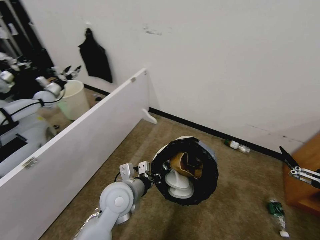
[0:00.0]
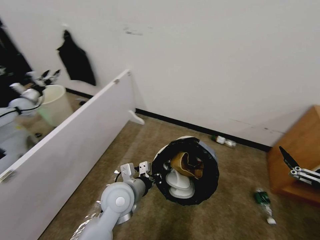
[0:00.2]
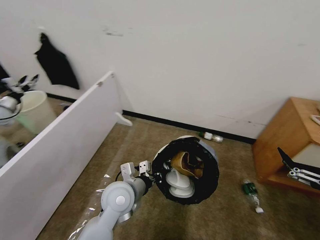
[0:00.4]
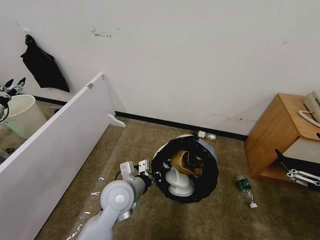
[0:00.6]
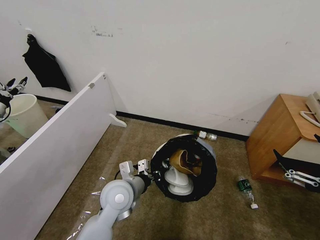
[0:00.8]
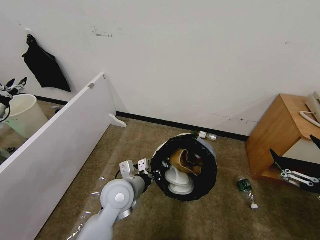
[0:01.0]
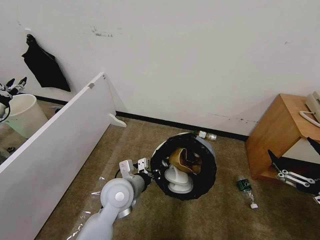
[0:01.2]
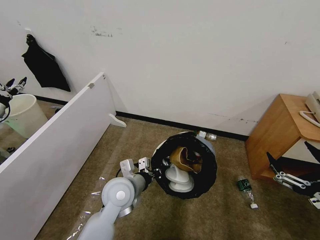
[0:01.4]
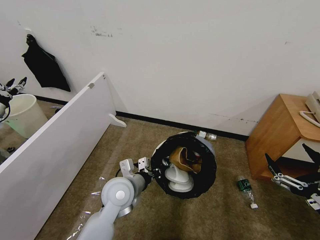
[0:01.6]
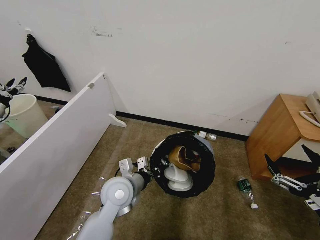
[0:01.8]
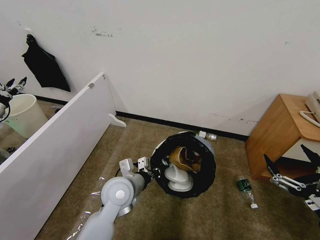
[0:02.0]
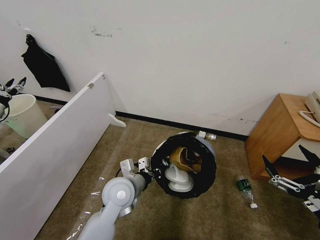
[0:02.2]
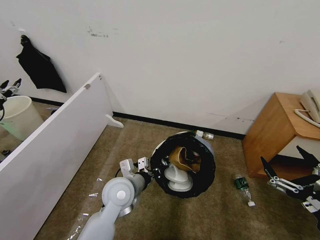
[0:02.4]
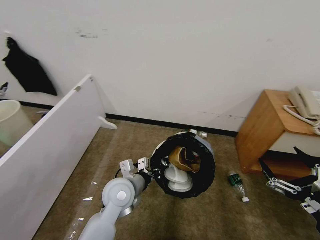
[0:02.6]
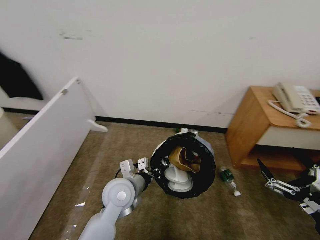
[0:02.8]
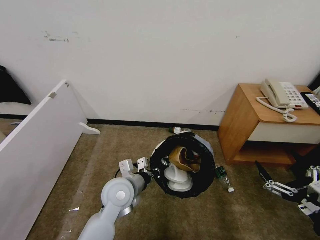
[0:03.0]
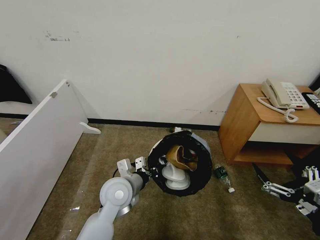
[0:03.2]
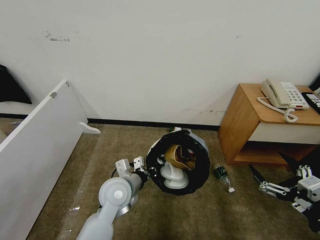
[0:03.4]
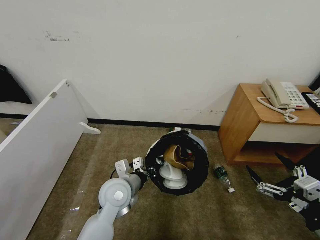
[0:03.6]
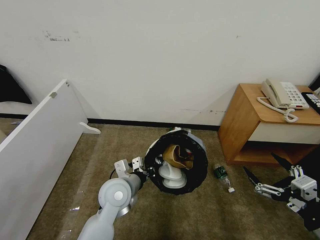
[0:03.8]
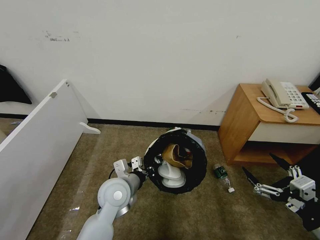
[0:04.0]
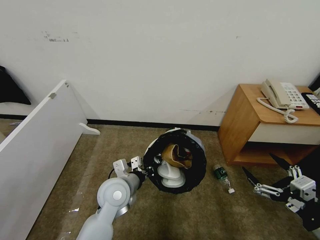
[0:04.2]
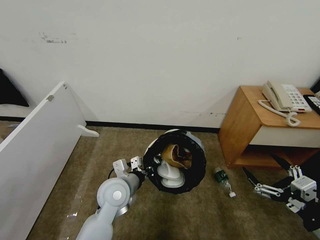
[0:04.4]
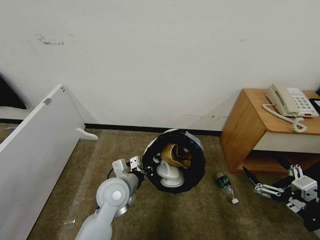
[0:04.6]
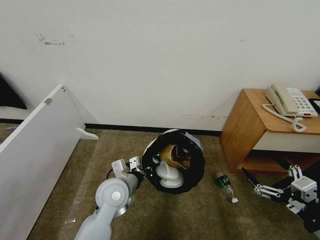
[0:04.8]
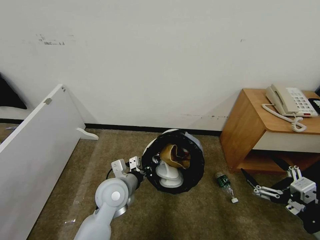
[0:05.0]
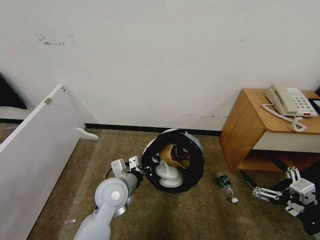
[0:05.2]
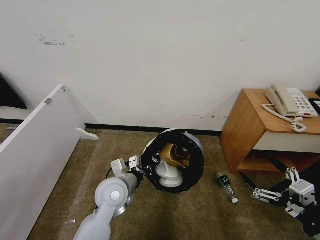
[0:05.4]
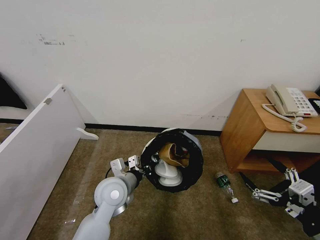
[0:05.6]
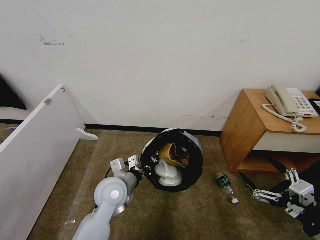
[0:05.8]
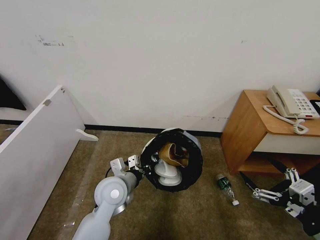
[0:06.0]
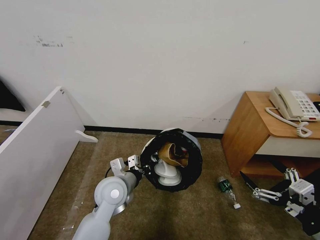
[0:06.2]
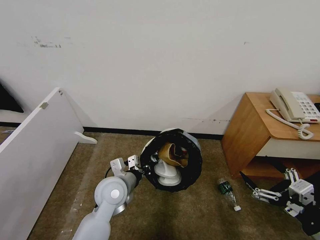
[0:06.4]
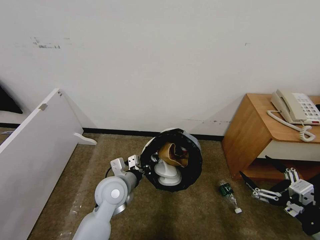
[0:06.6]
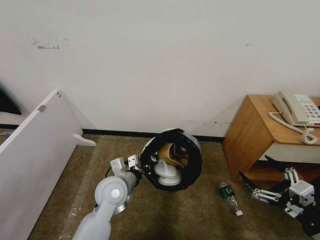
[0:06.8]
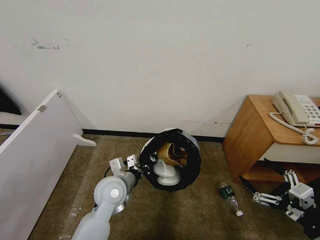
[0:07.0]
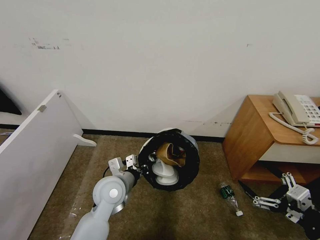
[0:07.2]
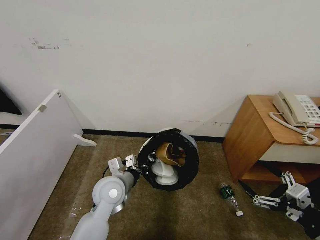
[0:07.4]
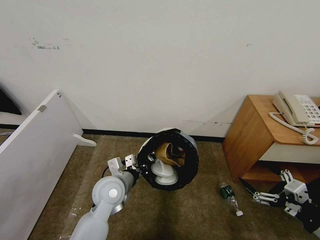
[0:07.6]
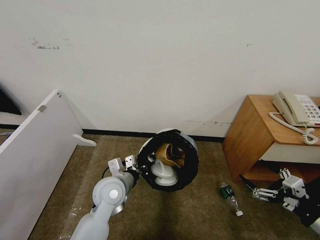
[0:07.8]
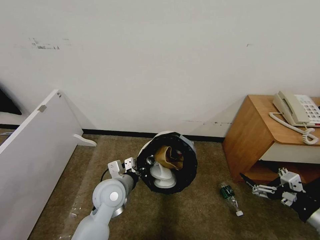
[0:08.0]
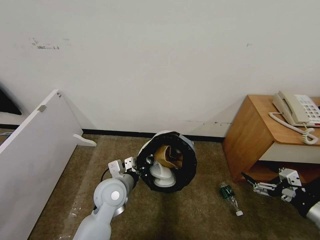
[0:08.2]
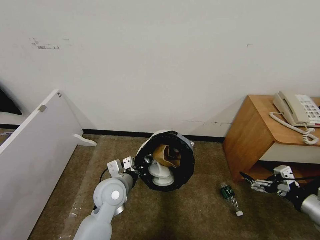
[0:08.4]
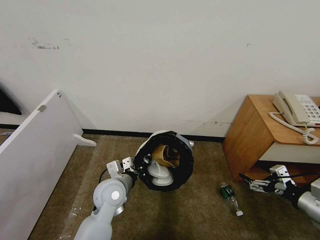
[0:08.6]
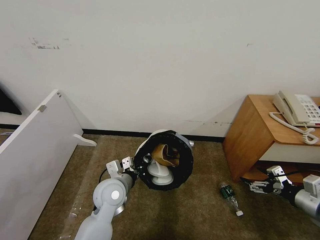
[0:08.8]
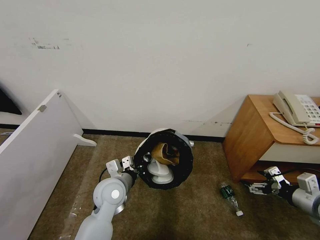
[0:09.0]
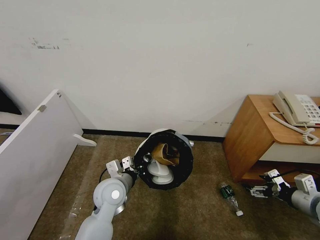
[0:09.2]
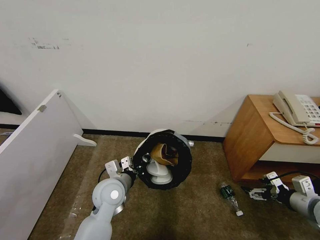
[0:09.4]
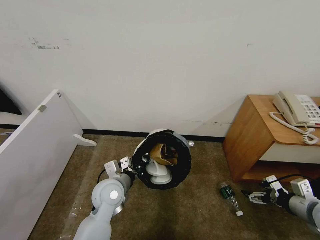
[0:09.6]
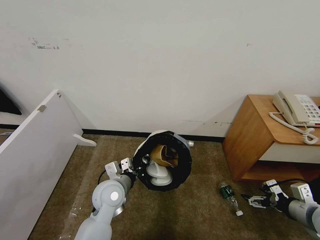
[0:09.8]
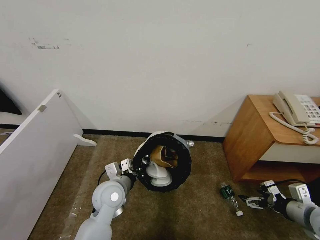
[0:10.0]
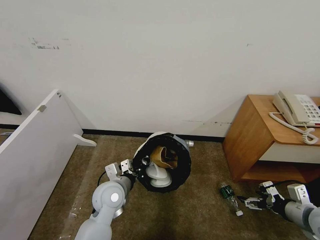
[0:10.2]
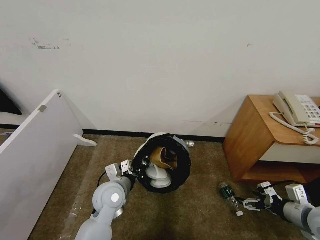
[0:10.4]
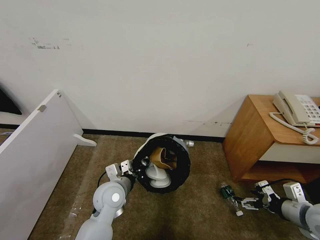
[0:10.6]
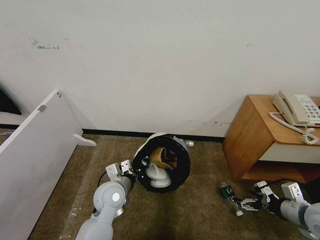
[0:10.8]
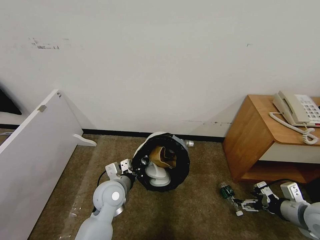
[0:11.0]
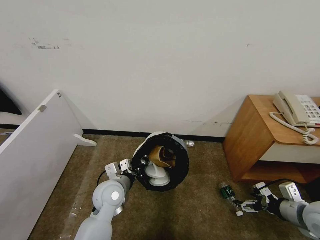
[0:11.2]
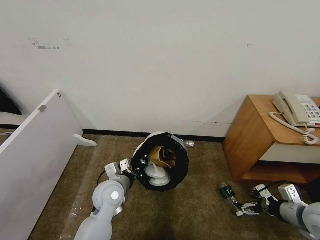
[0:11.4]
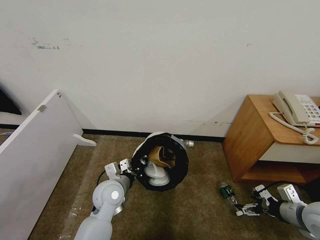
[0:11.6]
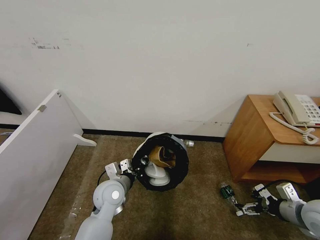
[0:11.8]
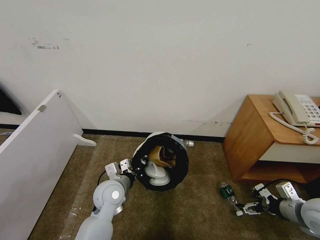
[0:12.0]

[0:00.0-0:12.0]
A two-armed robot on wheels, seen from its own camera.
Task of the whole recording: Pick up the trash bin and place the garbage on the floor into it.
0:00.0 to 0:01.6: The right gripper is displaced downward by some 5 cm.
0:03.0 to 0:04.4: The grippers move only a little.
0:04.4 to 0:06.0: Neither gripper changes place.
0:06.0 to 0:07.6: The grippers make only small movements.
0:07.6 to 0:09.0: The right gripper shifts approximately 10 cm forward.
0:09.0 to 0:12.0: The grippers make only small movements.

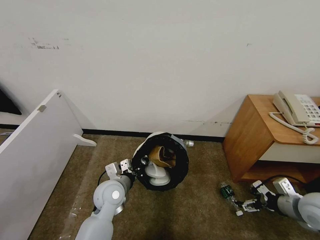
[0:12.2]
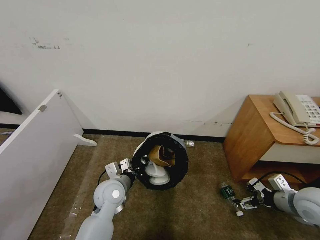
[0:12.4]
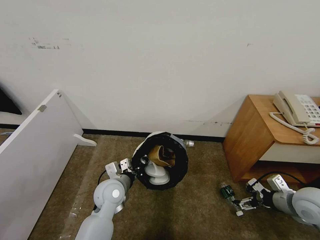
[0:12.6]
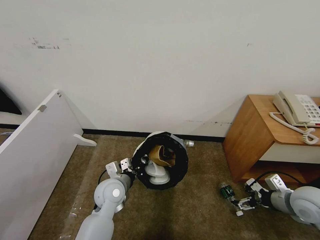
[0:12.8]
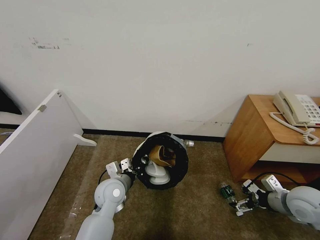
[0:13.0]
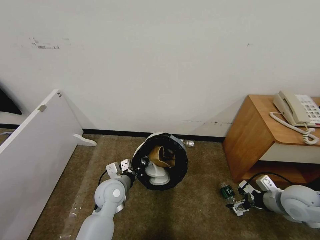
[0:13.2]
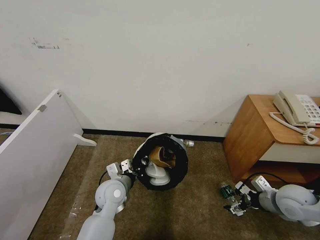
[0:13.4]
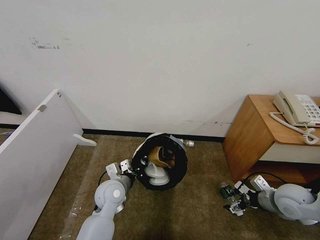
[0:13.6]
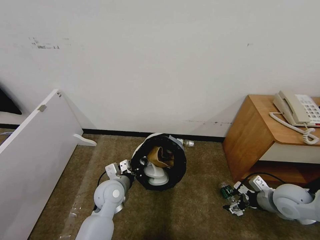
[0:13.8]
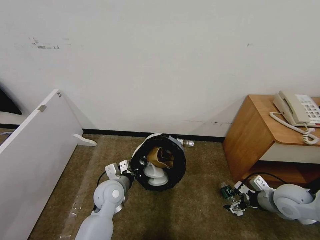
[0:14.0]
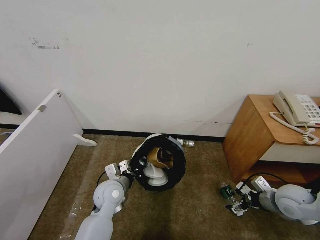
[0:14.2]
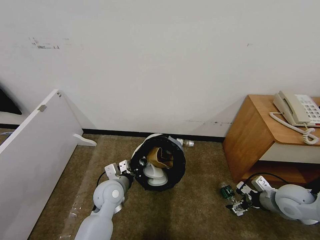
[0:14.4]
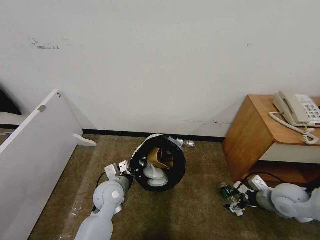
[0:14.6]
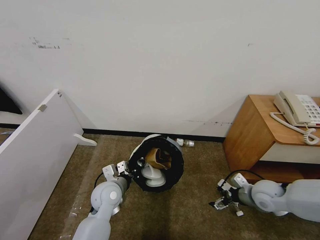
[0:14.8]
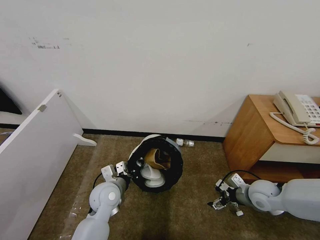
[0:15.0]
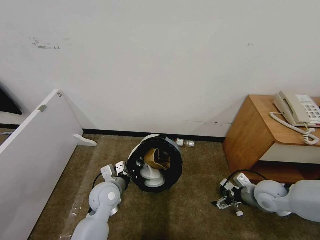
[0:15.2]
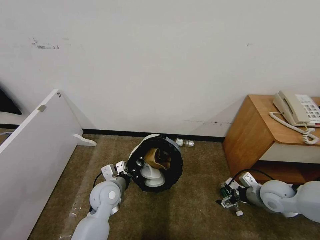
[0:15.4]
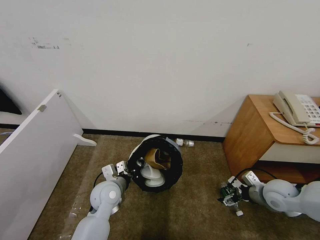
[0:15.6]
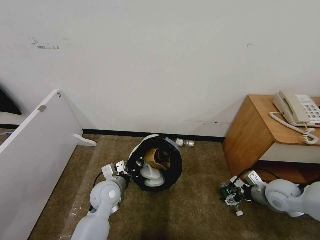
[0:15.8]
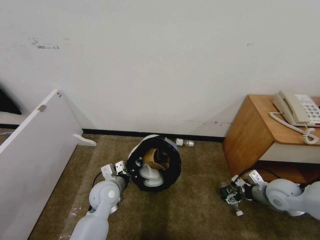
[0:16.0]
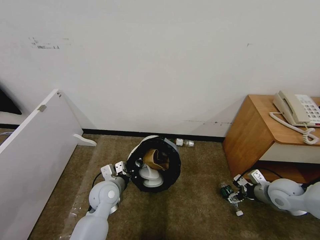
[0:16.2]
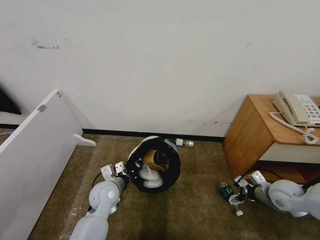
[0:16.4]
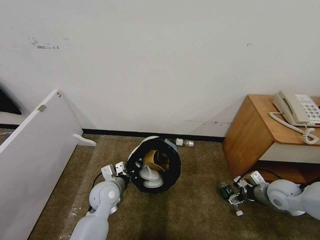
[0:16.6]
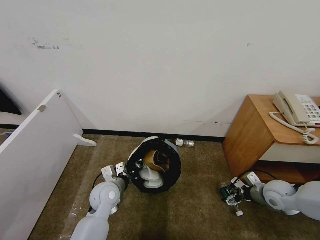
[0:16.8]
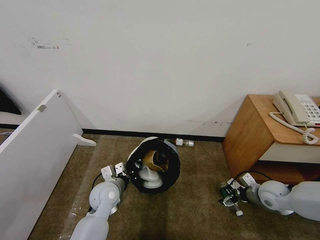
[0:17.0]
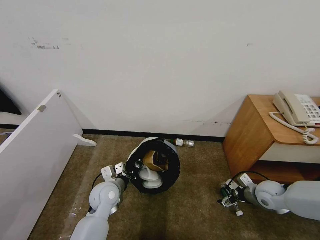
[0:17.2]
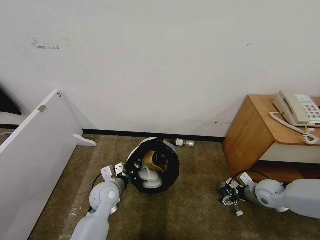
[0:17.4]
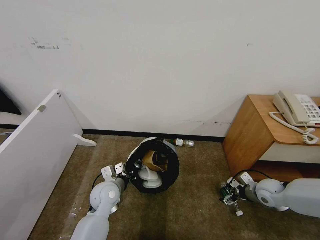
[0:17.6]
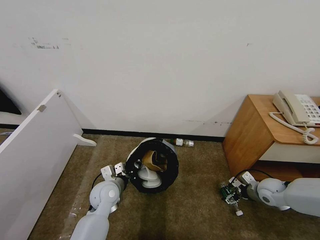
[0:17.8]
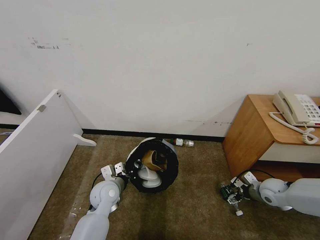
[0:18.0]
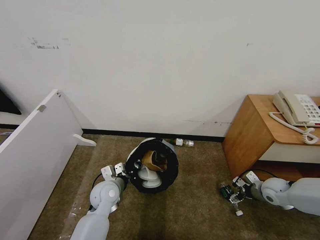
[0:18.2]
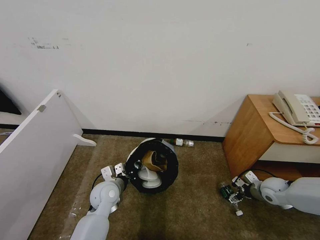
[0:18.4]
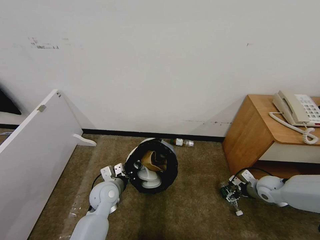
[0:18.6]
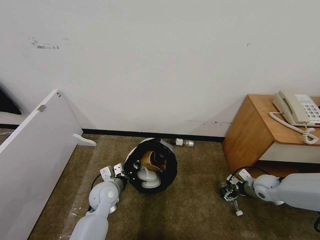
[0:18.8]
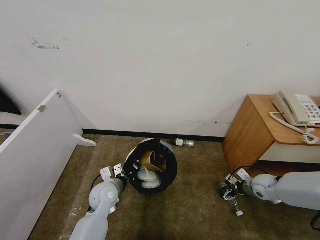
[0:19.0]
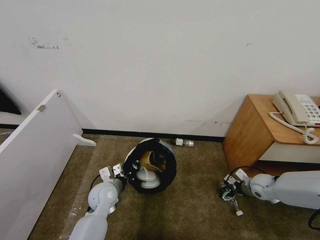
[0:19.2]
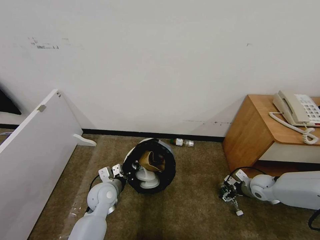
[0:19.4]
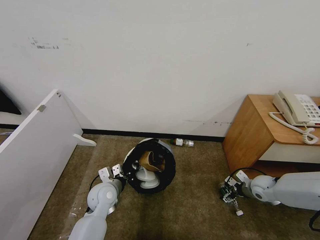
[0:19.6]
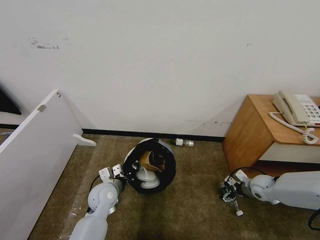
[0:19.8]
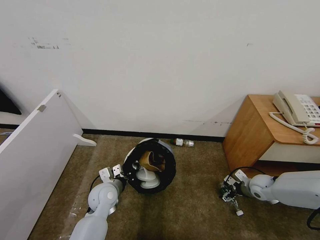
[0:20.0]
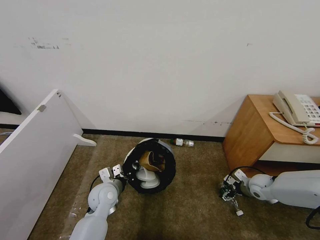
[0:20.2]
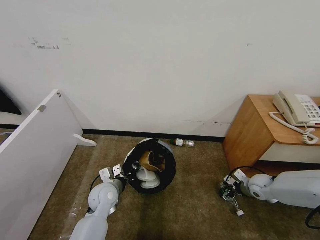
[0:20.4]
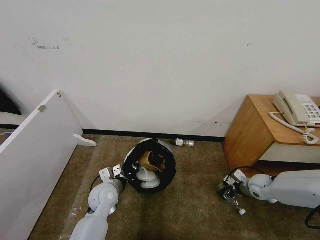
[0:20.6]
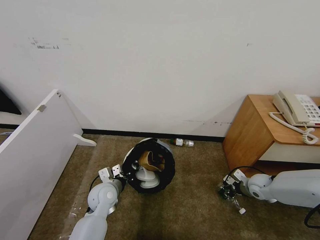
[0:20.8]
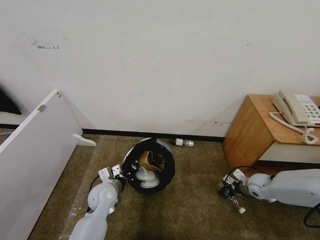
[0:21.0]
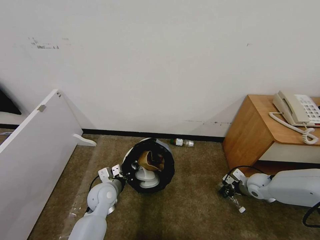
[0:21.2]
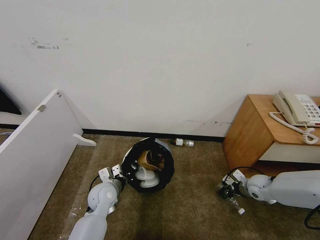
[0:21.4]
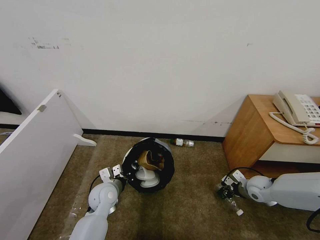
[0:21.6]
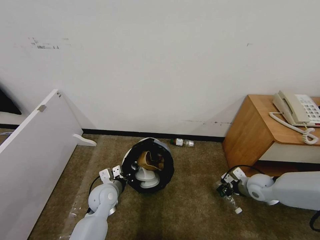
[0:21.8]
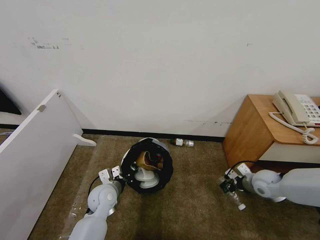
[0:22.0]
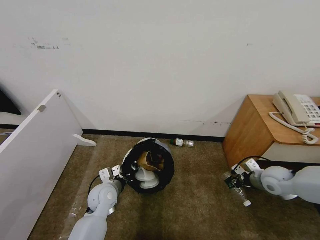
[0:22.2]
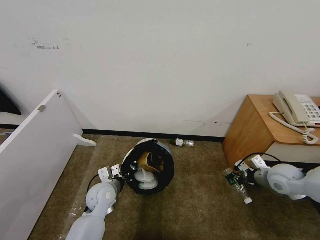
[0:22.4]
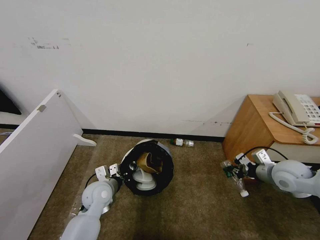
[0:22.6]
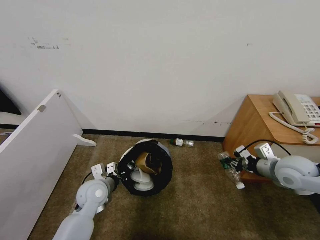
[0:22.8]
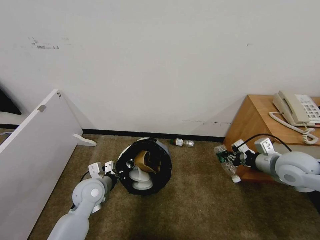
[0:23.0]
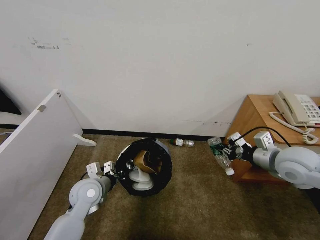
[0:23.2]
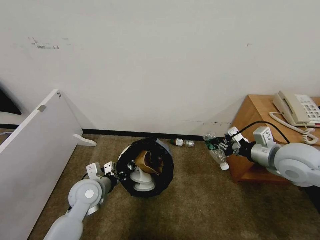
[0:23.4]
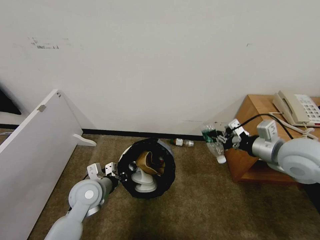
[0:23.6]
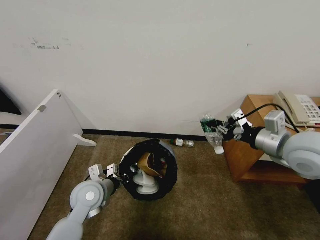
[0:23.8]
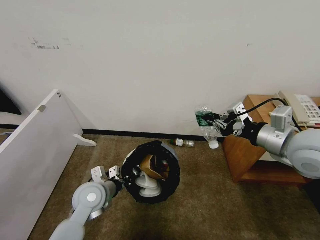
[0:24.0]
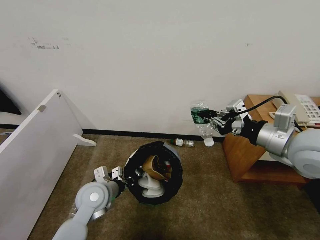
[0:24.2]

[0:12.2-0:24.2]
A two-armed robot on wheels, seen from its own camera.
Task of the whole recording: Pick up the trash bin and place the garbage on the floor into it.
0:12.2 to 0:13.8: The right gripper shifts by some 5 cm.
0:13.8 to 0:15.2: The right gripper ends up about 5 cm from where it was.
0:15.2 to 0:16.6: The right gripper moves to the right, roughly 5 cm.
0:16.6 to 0:18.2: The right gripper shifts by some 5 cm.
0:18.2 to 0:19.8: There are only small adjustments of the grippers.
0:19.8 to 0:21.2: The right gripper closes its fingers.
0:21.2 to 0:22.6: The right gripper moves upward, some 15 cm.
0:22.6 to 0:24.2: The left gripper ends up approximately 5 cm from where it was; the right gripper heads upward and to the left, covering roughly 20 cm.
